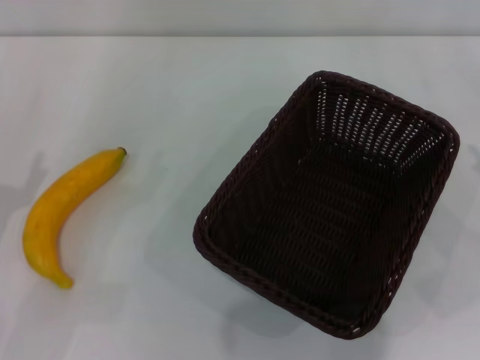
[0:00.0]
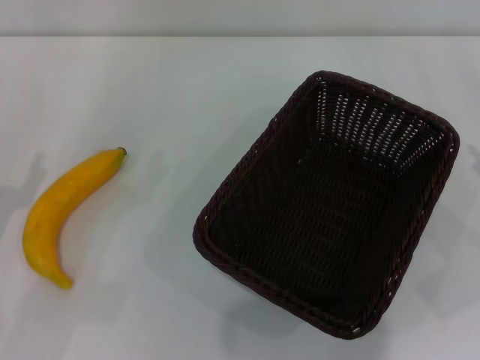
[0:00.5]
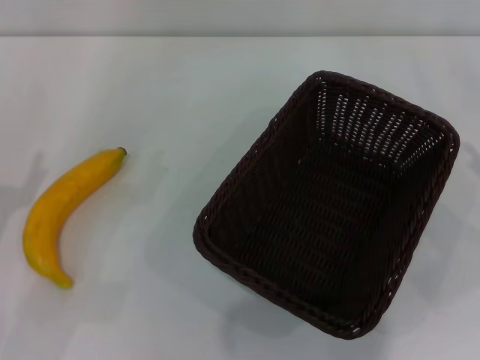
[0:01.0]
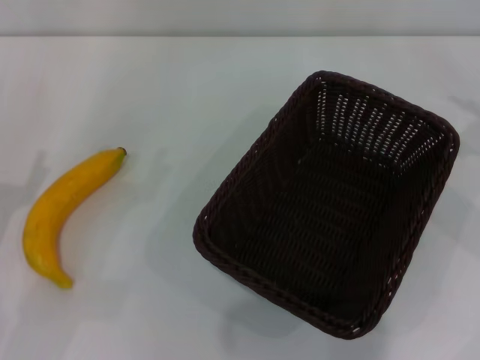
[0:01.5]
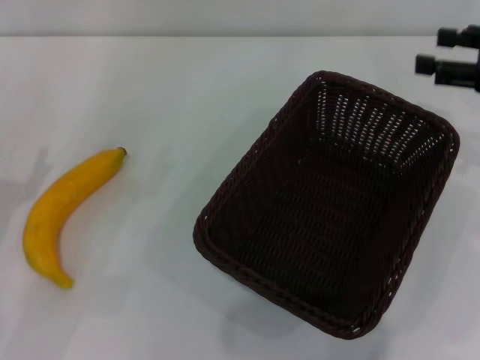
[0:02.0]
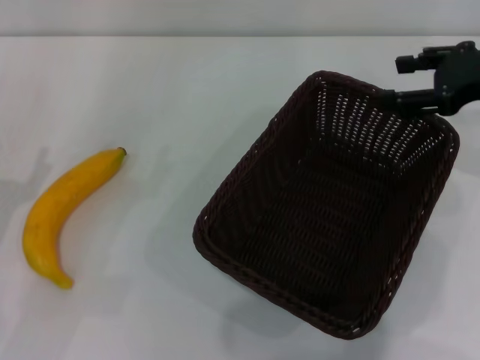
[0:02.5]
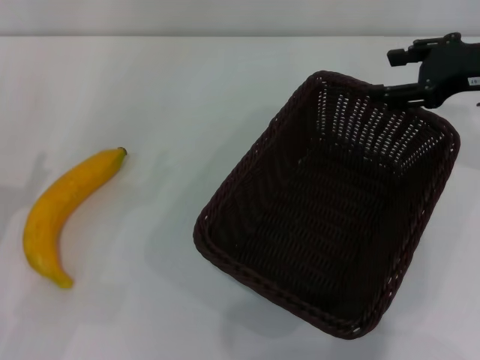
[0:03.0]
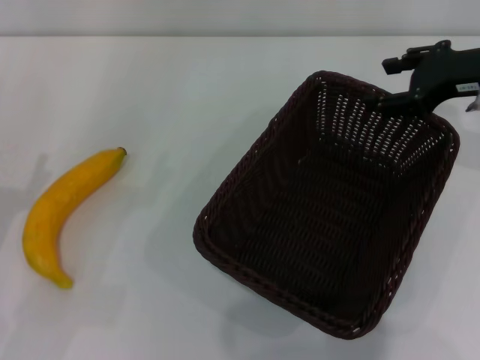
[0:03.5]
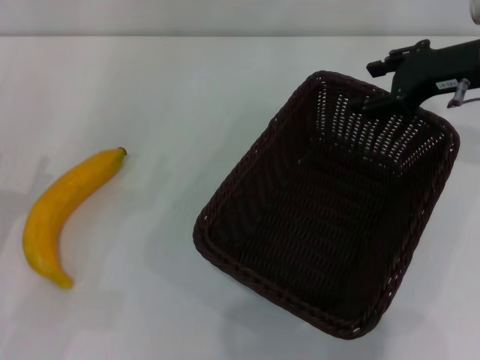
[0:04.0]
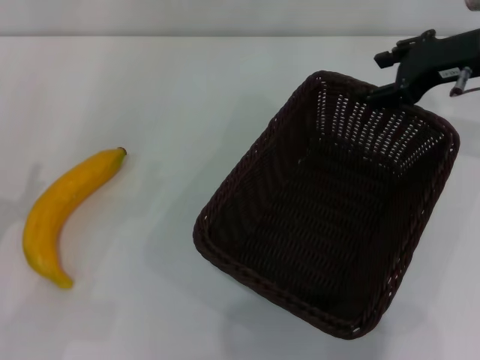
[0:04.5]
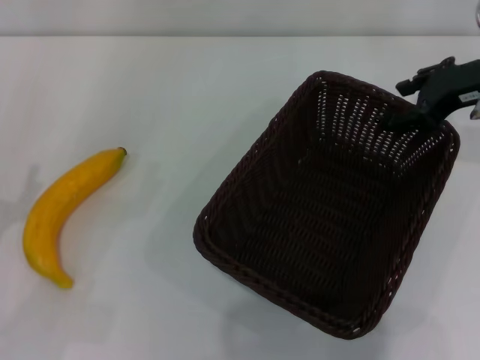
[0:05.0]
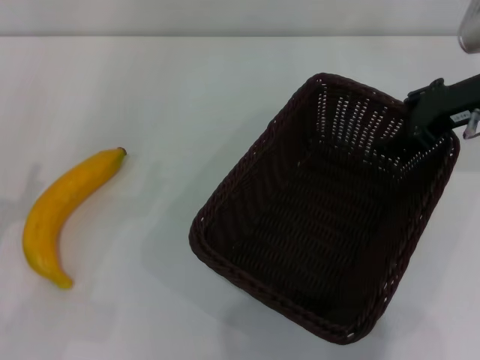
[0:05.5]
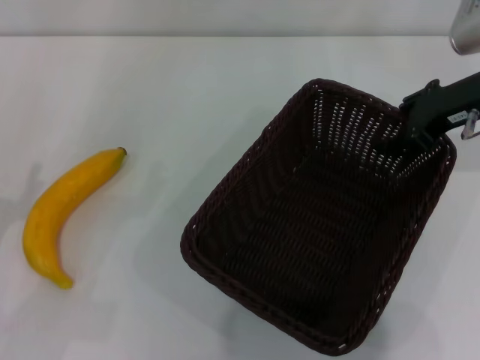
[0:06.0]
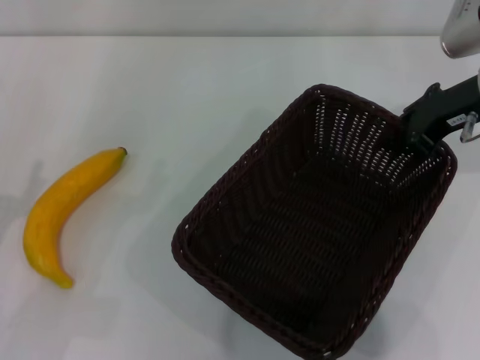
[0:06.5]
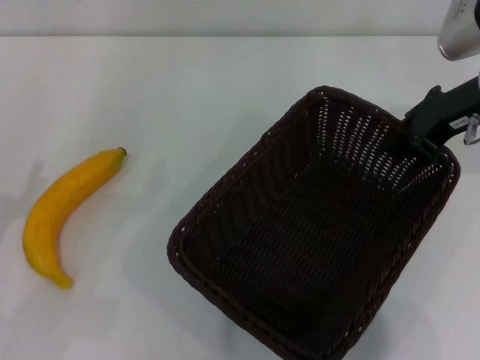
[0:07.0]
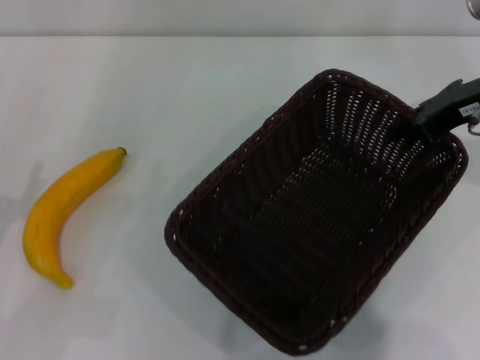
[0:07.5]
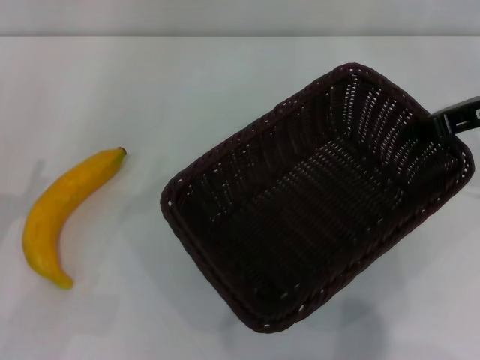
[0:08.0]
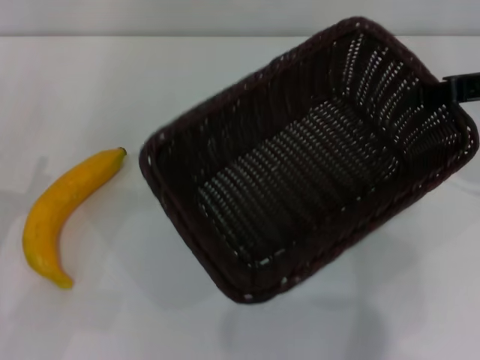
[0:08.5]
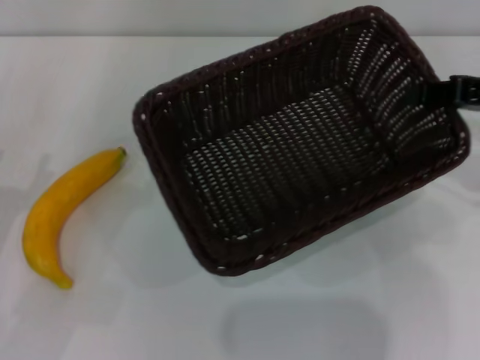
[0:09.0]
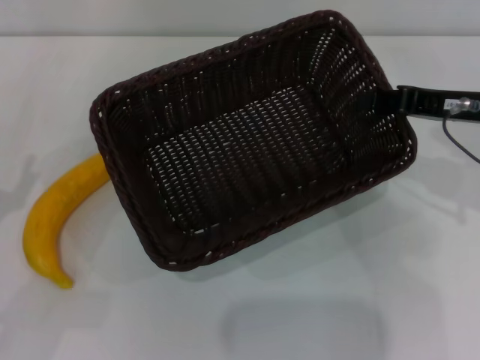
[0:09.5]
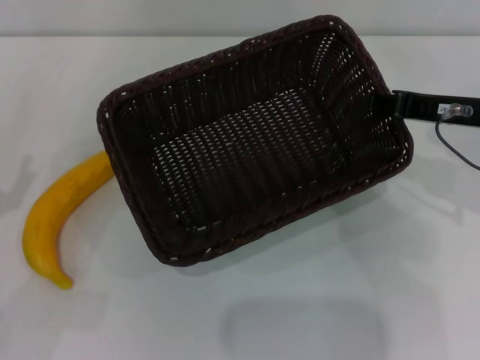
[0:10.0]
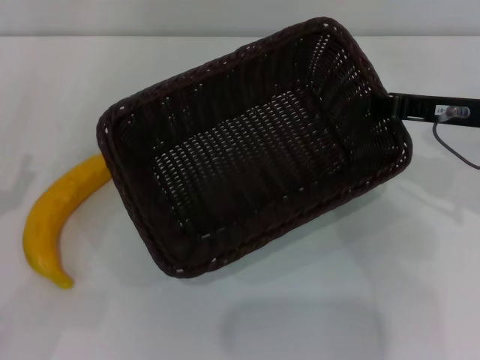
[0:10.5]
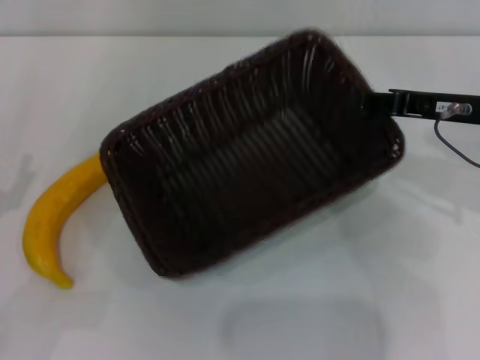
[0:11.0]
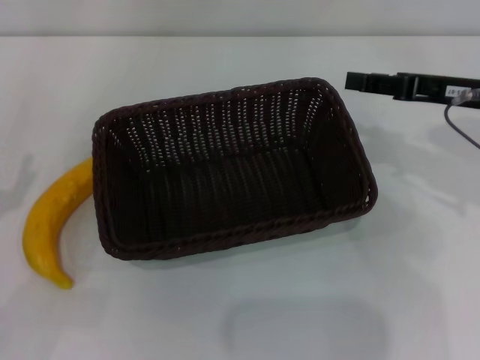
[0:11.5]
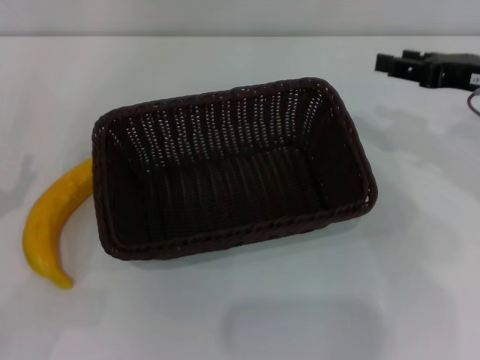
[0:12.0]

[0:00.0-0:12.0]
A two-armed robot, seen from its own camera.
Step, 0:00.0 to 0:07.5: Pick up the dark basket with the right gripper.
Step, 0:08.0 to 0:12.0: Place the dark basket in the center of view with the right gripper.
0:00.0 to 0:02.0: The right gripper shifts approximately 15 cm forward and upward.
0:02.0 to 0:04.0: The right gripper shifts about 10 cm to the left.
0:04.0 to 0:06.0: The grippers move only a little.
0:06.0 to 0:08.0: The right gripper closes.
0:10.0 to 0:12.0: The right gripper opens its fingers.

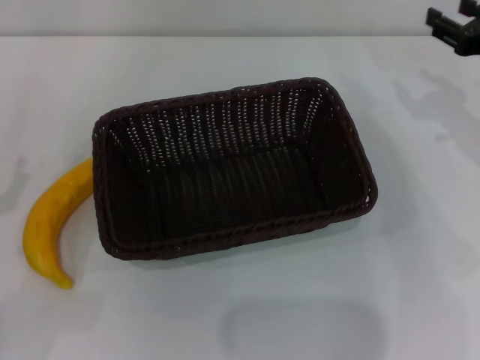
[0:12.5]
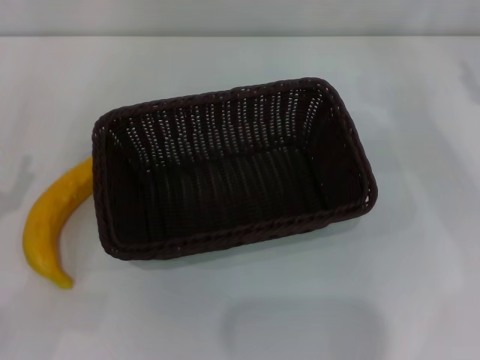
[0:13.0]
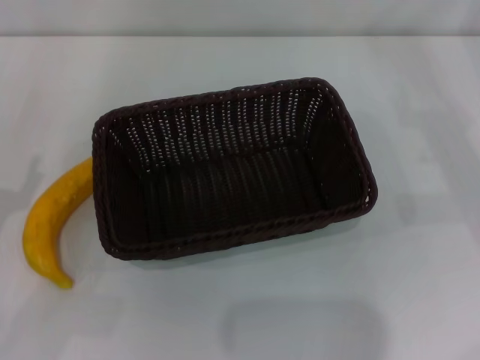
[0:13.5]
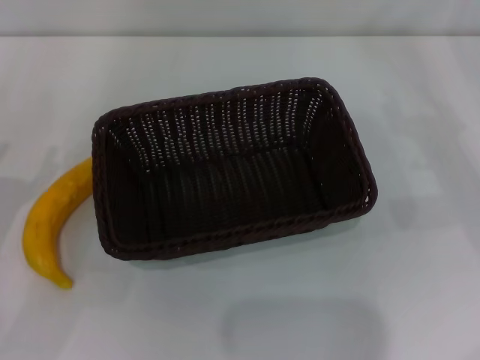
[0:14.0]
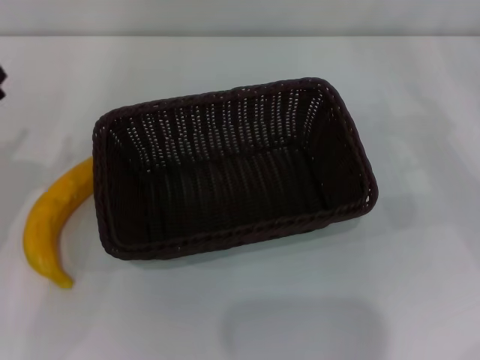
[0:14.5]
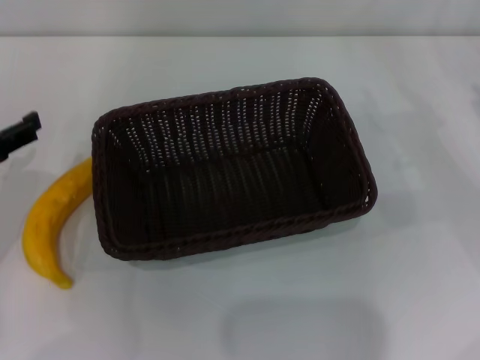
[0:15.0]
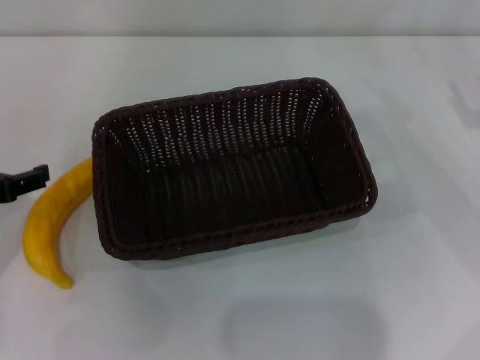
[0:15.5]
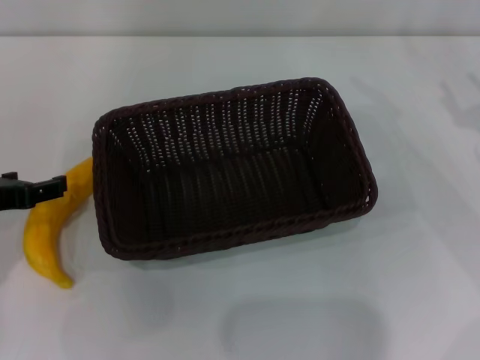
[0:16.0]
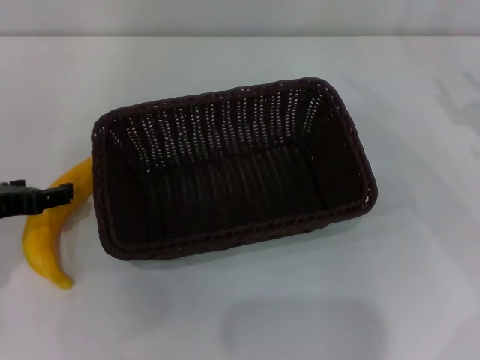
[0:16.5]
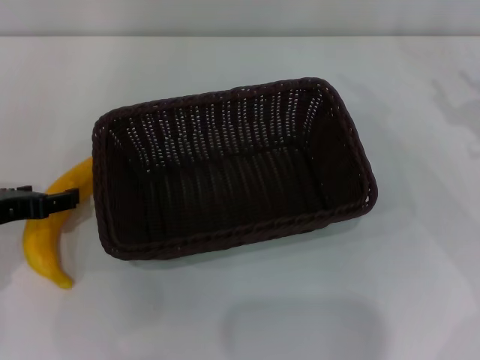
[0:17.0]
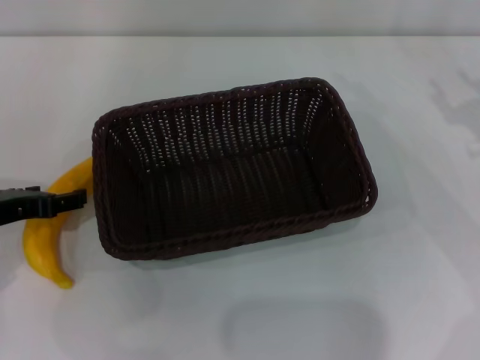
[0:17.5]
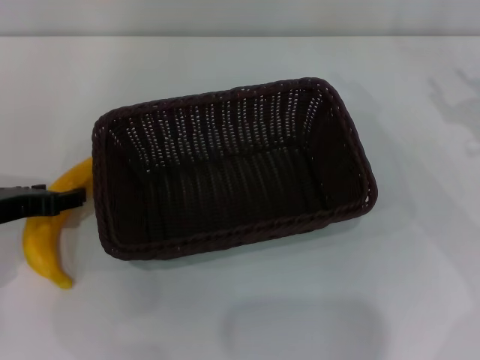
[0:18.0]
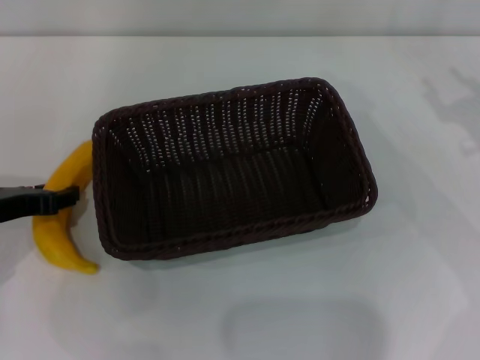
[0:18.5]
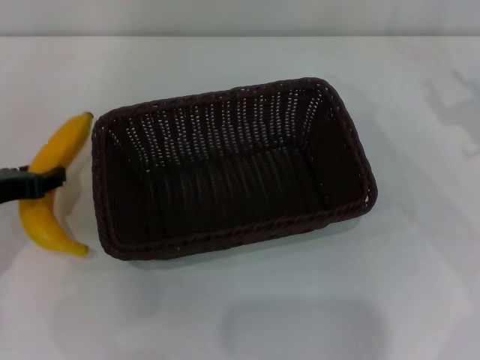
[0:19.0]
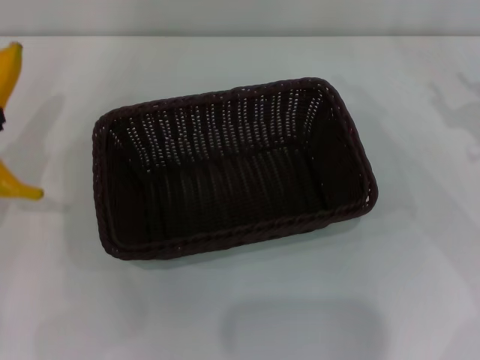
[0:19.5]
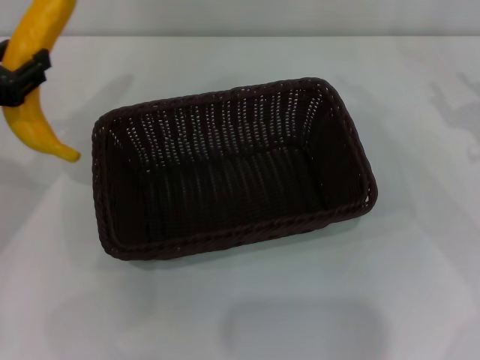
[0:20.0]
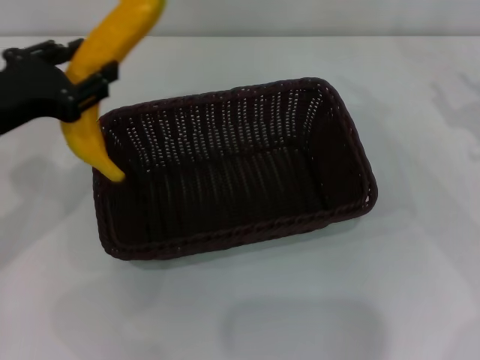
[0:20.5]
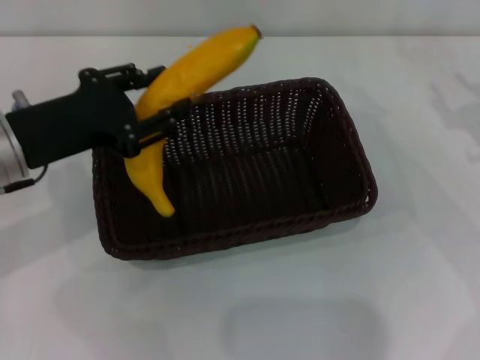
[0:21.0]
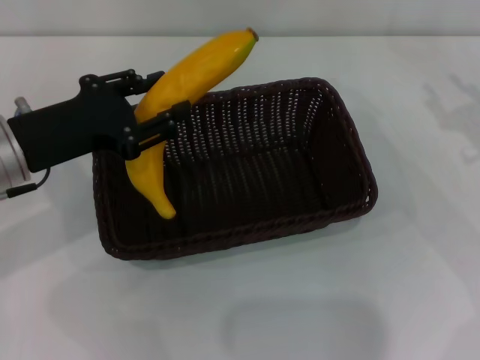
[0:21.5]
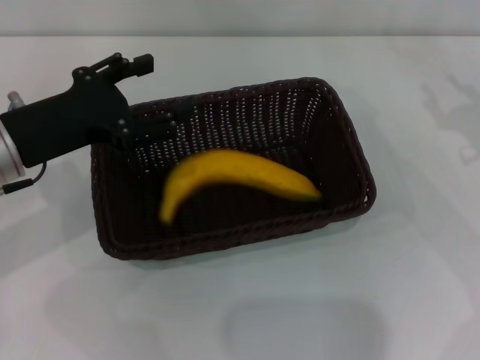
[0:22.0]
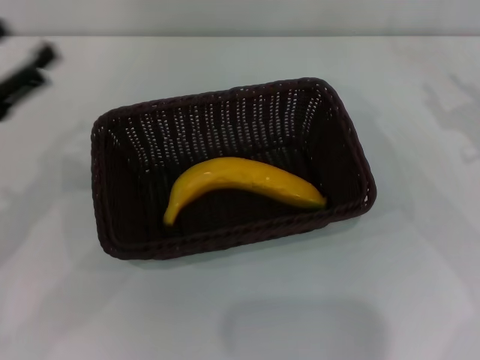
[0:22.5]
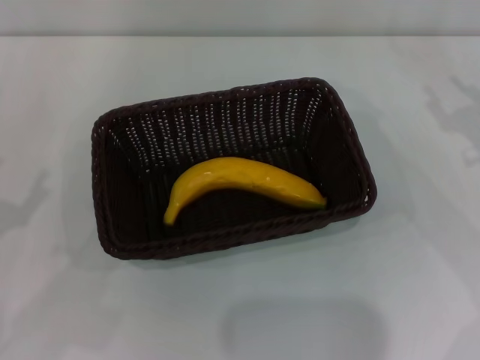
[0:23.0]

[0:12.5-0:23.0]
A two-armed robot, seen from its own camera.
Step, 0:12.5 to 0:19.0: Pick up the banana with the left gripper.
Step, 0:19.5 to 0:22.0: Place the banana into the dark basket with the left gripper.
0:12.5 to 0:14.5: The right gripper is displaced to the right, downward and backward by roughly 10 cm.
0:16.5 to 0:19.0: The left gripper closes.
0:19.0 to 0:21.0: The left gripper heads to the right, covering about 5 cm.
0:21.0 to 0:23.0: The left gripper goes about 15 cm backward, to the left and downward, and opens.
